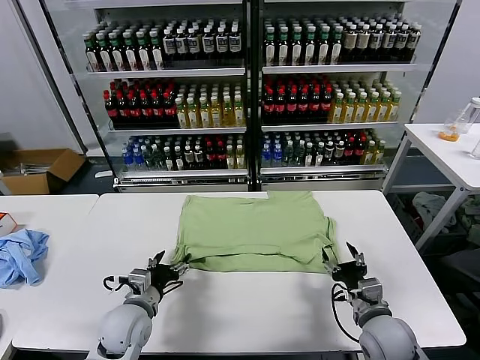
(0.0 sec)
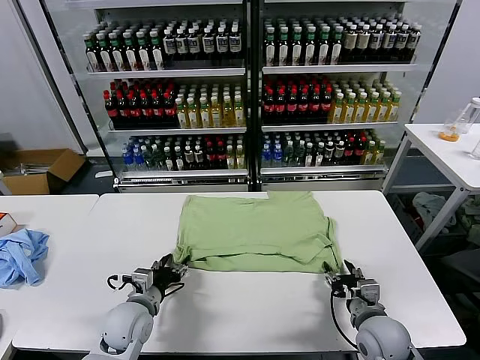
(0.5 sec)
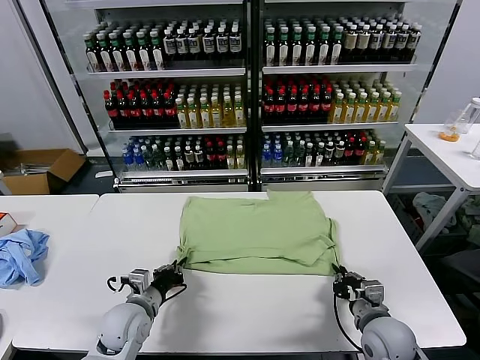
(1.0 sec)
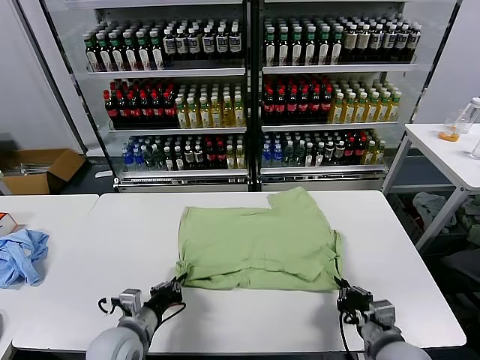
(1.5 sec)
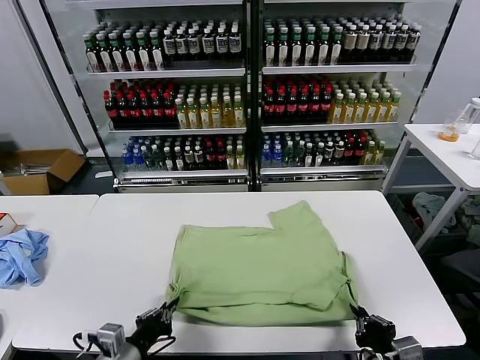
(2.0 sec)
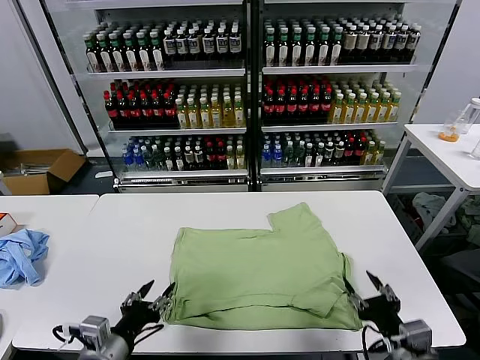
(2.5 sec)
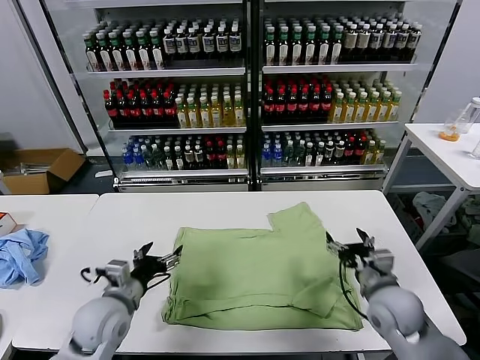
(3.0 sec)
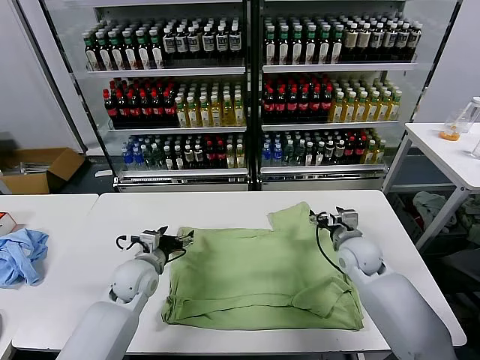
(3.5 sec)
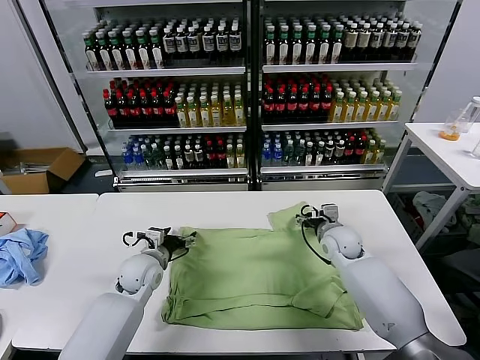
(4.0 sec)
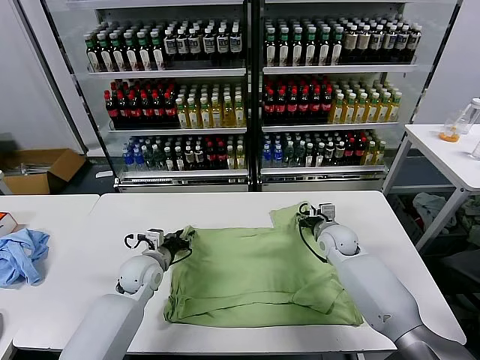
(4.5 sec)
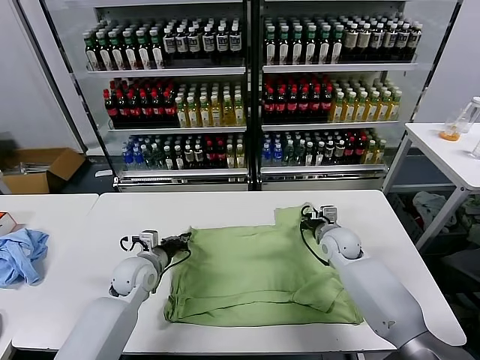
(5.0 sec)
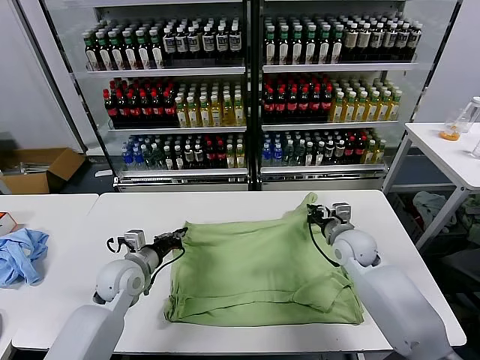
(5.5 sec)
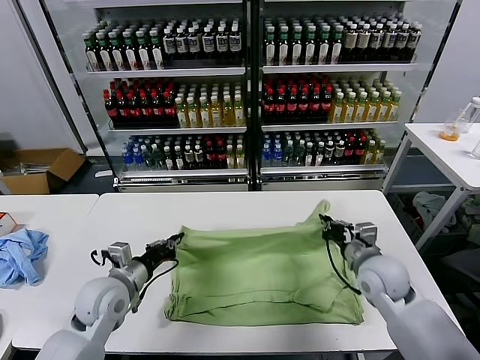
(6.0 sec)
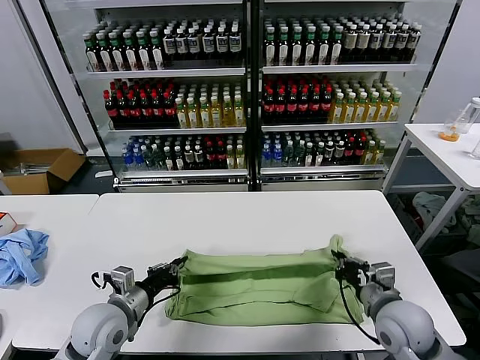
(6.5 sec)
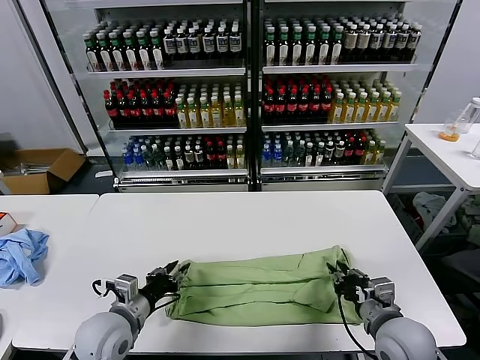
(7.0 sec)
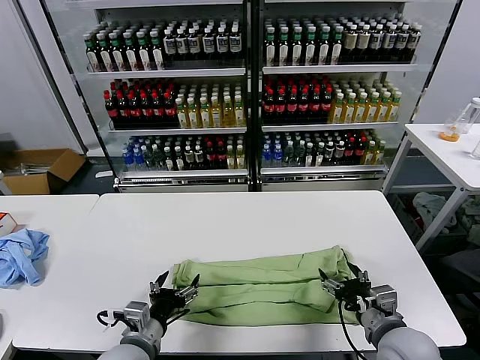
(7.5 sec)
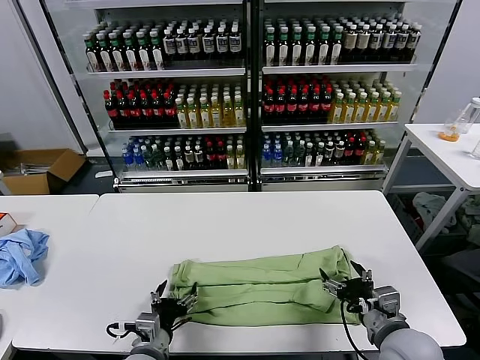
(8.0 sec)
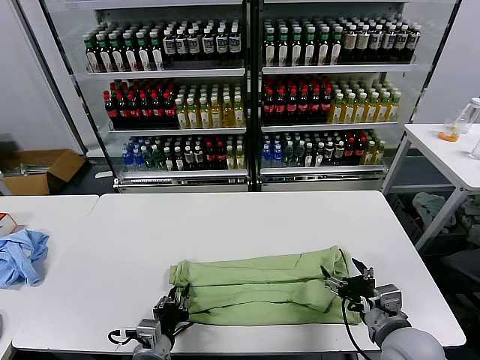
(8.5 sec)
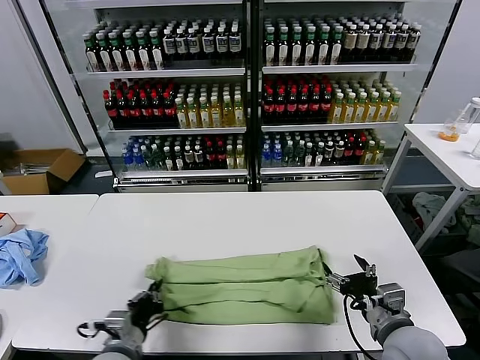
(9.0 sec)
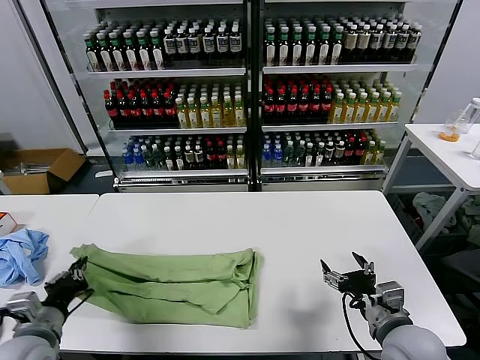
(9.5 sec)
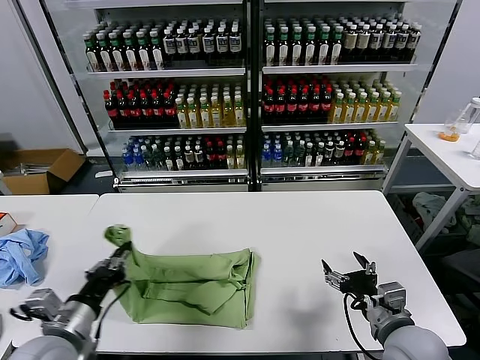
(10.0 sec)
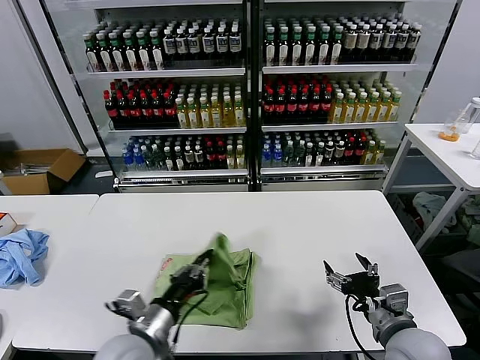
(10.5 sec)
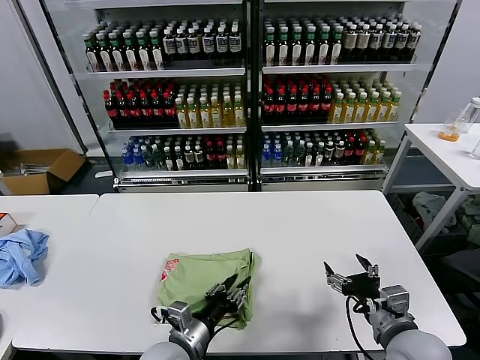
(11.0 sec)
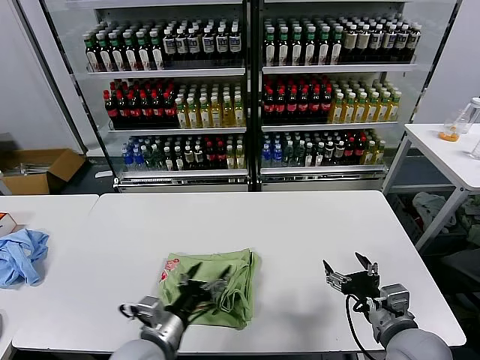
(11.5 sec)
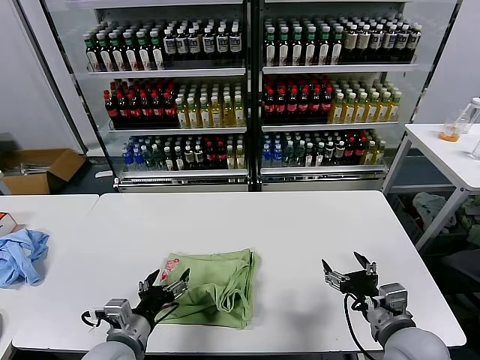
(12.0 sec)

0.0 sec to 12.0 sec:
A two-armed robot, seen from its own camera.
Task of the whole recording: fold and organize the clothes.
Step, 0.0 sec to 2.0 sec: Drag the clothes downward with both gripper.
Step, 2.5 sec to 4.5 sec: use both grippers simultaneously to clamp the upper edge of the clothing fabric.
Step, 5.0 sec to 7.0 sec: use both grippers to drag the upper edge of the fabric backward and fold it over the lower edge.
Step, 7.5 sec to 8.5 sec: use the left gripper to clamp the left edge of the fabric.
Step, 9.0 sec to 11.0 sec: use the left gripper to drag the left edge of the fabric to the left and folds it over the right edge.
0.0 sec to 2.0 sec: The two grippers go some 15 cm backward. The right gripper closes its fingers. The left gripper closes its fingers.
2.0 sec to 4.0 sec: Both grippers move forward, some 30 cm. The left gripper opens up. Meanwhile the right gripper opens.
4.0 sec to 6.0 sec: Both grippers move backward and upward, about 15 cm. The right gripper closes its fingers; the left gripper closes.
6.0 sec to 8.0 sec: The right gripper is displaced backward by some 15 cm, and opens, while the left gripper moves backward, to the right and downward, some 15 cm, and opens its fingers.
8.0 sec to 10.0 sec: The left gripper shifts about 15 cm to the left and upward, and closes up.
10.0 sec to 12.0 sec: The left gripper shifts roughly 10 cm to the right and downward, and opens up.

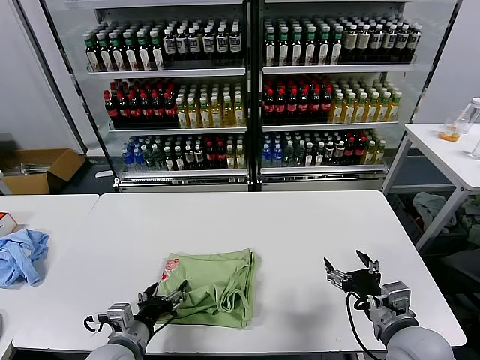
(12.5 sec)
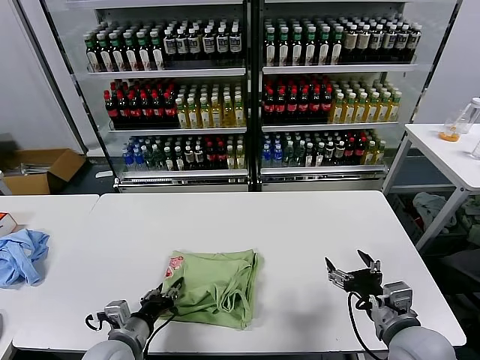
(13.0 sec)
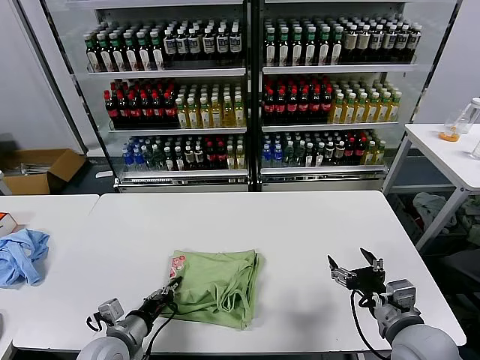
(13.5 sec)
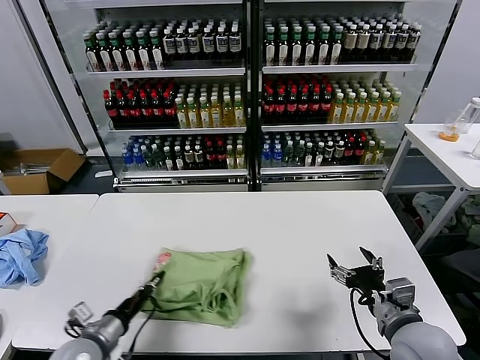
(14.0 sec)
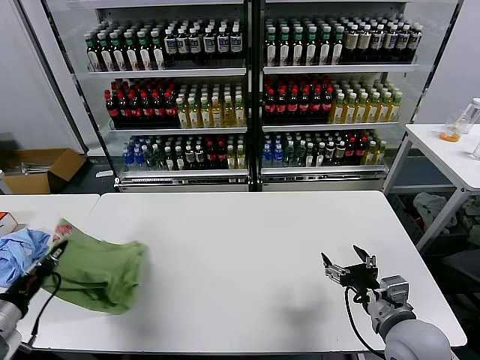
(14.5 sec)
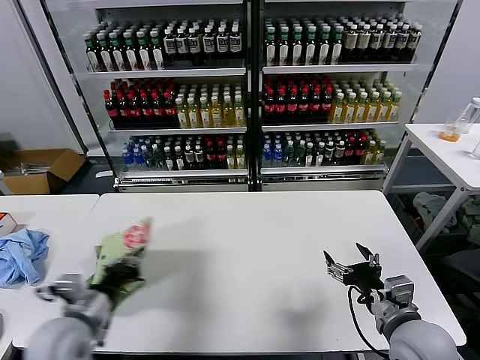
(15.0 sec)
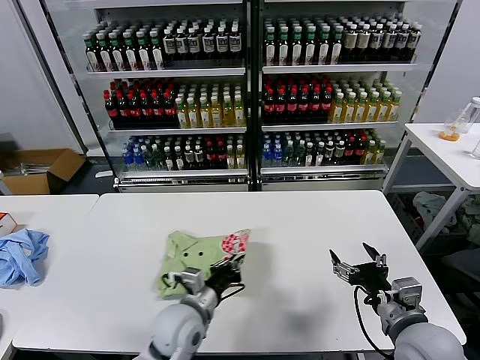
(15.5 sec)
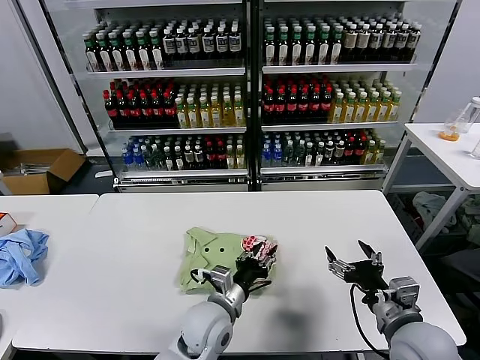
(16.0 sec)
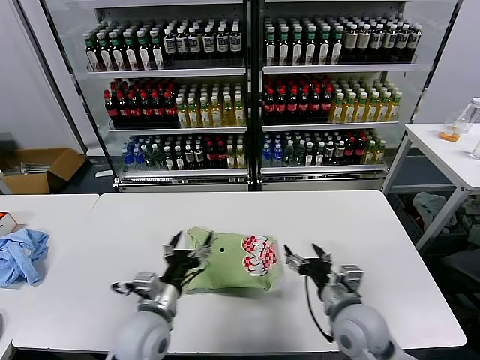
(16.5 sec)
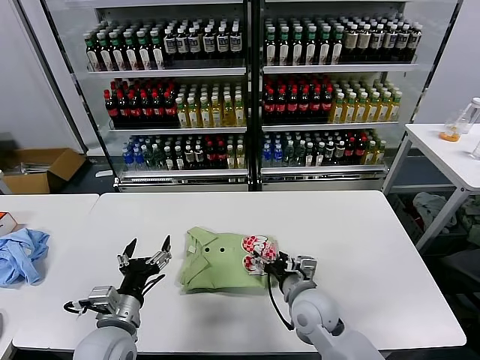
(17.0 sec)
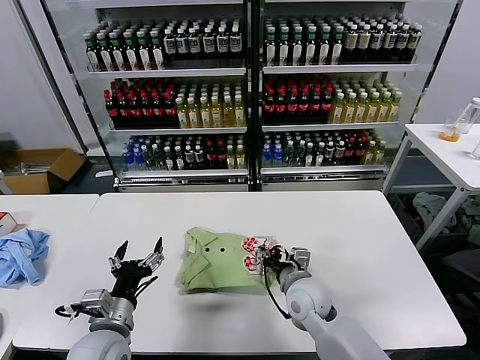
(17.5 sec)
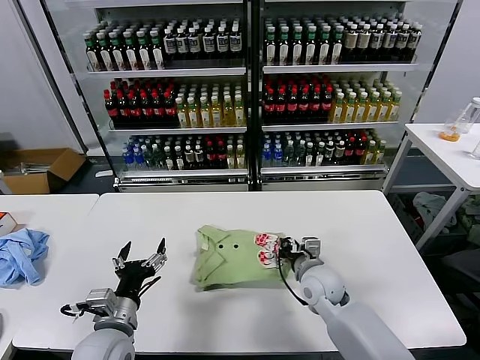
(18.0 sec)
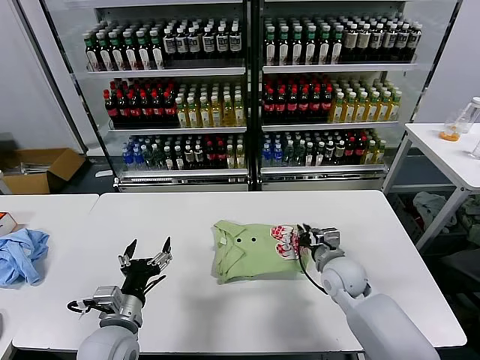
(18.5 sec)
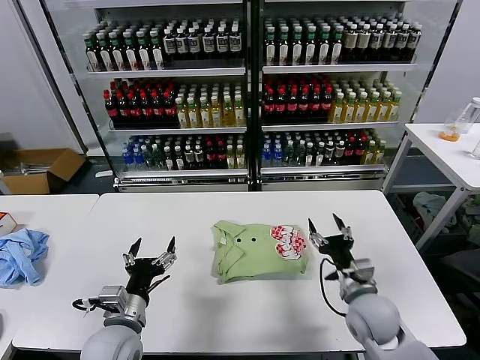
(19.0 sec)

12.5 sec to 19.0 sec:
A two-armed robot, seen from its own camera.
Task of the whole recording: fold and organize the clothes.
Step, 12.5 sec to 16.0 sec: Flip the folded clothes over with left gripper.
Step, 16.5 sec to 18.5 sec: Drag the clothes to the center of the table.
12.5 sec to 14.5 sec: The left gripper goes about 20 cm to the left and upward, and closes its fingers.
14.5 sec to 17.0 sec: The left gripper travels to the right by approximately 20 cm, and opens its fingers; the right gripper travels to the left, forward and downward by roughly 20 cm.
17.0 sec to 19.0 sec: The right gripper goes some 10 cm to the right, and closes, then reopens.

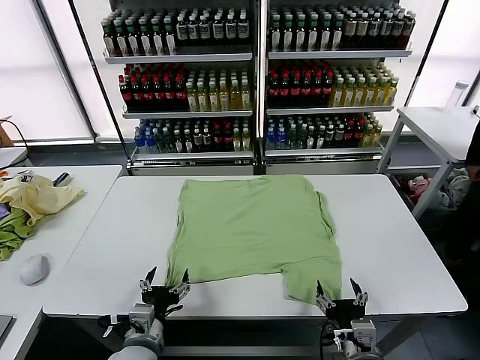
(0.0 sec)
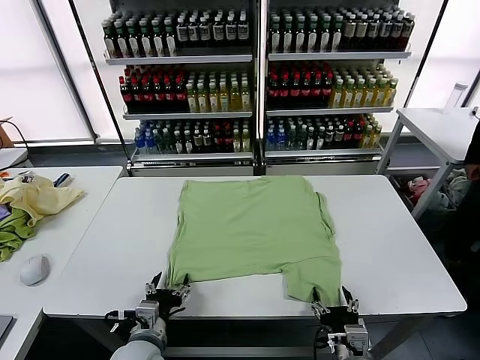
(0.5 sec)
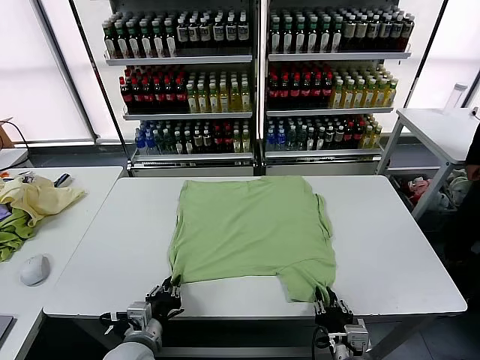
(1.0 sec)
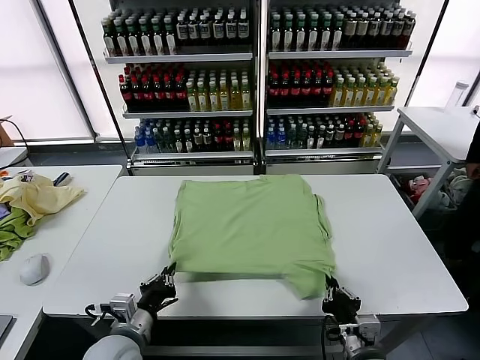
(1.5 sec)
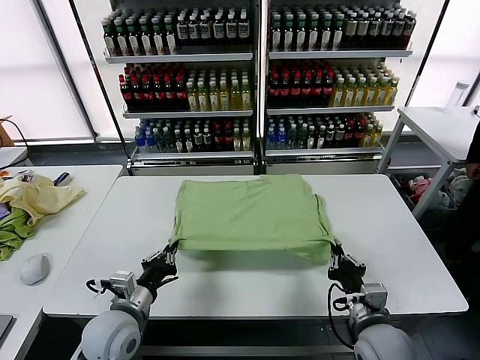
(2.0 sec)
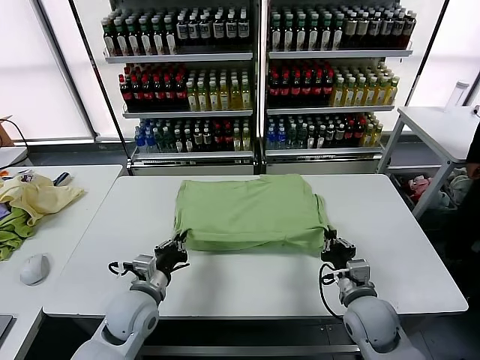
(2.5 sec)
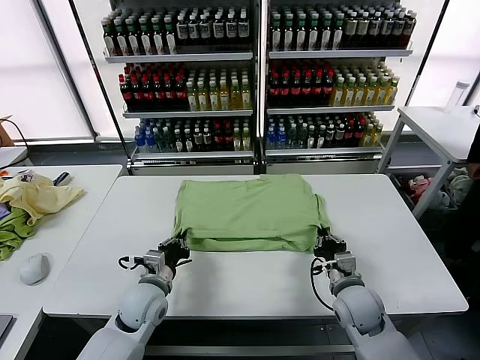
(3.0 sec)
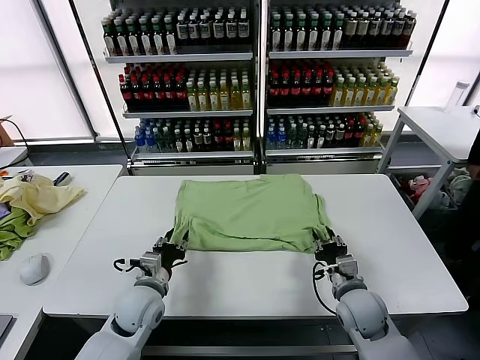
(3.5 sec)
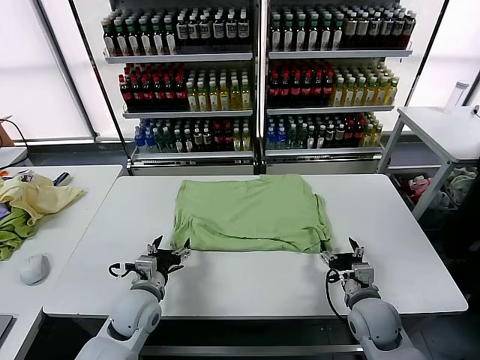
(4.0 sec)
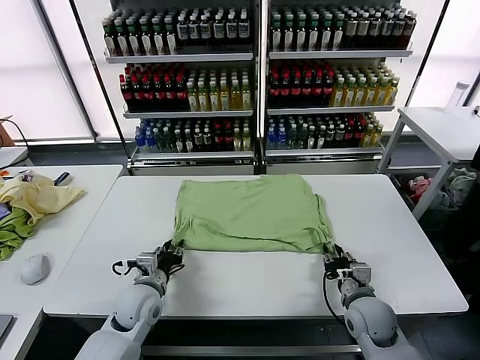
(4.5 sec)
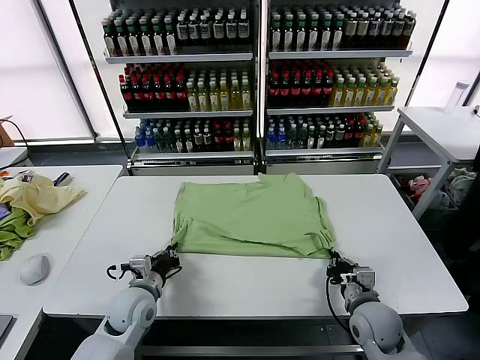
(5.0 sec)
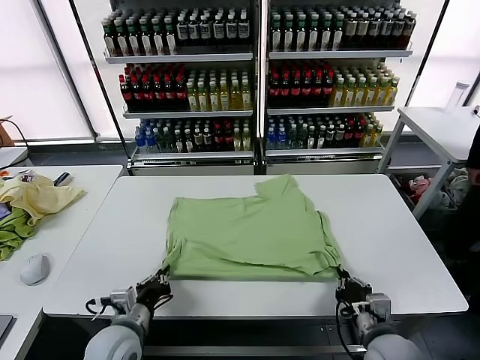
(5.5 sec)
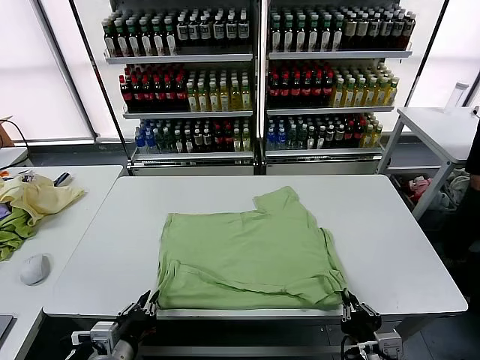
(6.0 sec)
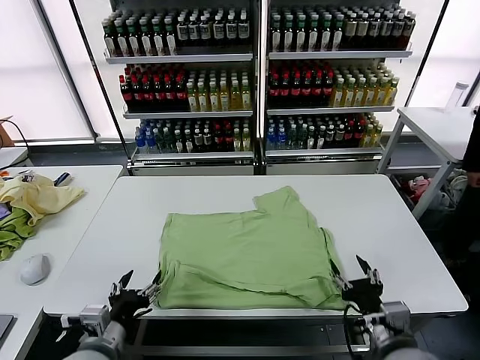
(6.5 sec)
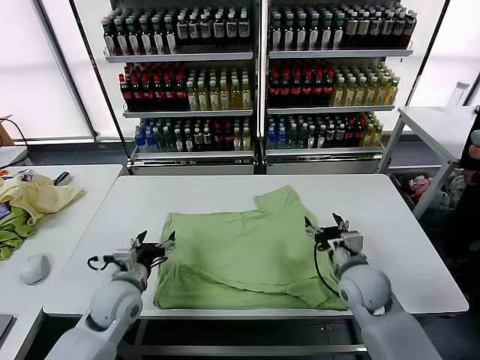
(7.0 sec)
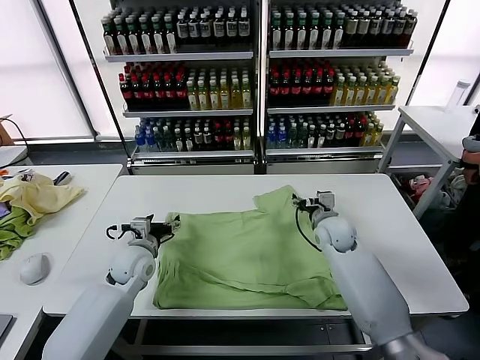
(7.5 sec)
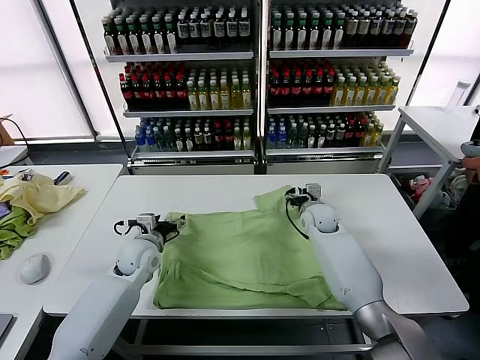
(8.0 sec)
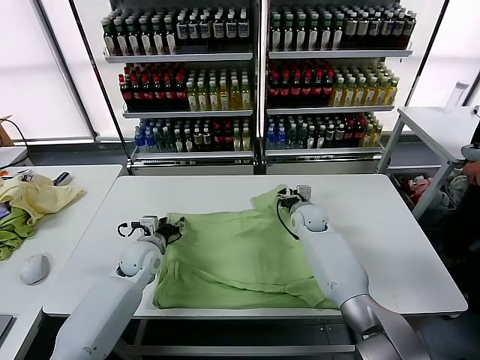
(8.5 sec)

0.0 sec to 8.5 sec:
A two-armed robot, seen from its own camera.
Task of the whole recording: fold and organize the clothes.
Step, 0.0 sec to 1.0 sec: use both grippers simultaneously to clamp the lower edge of the clothing fabric.
Step, 1.5 sec to 3.5 sec: use both grippers to drag the lower edge of the fabric forward and fold it over the upper edge.
Step, 4.0 sec to 6.0 sec: Drag the clothes downward with both gripper.
2.0 sec to 4.0 sec: The left gripper shifts about 5 cm forward, and opens its fingers; the right gripper shifts by roughly 5 cm, and opens up.
4.0 sec to 6.5 sec: The two grippers go about 15 cm backward and upward. The left gripper closes and opens again, while the right gripper closes and opens again.
6.5 sec to 8.5 sec: Both grippers move forward, some 30 cm. The right gripper closes up; the left gripper closes.
